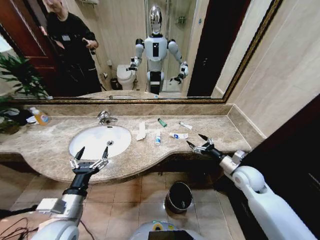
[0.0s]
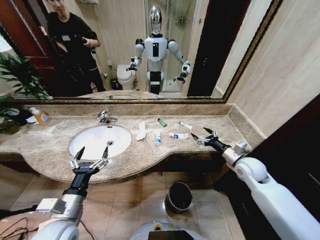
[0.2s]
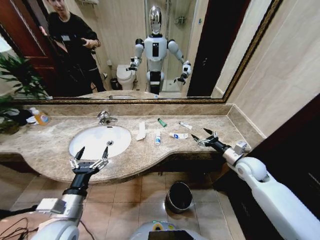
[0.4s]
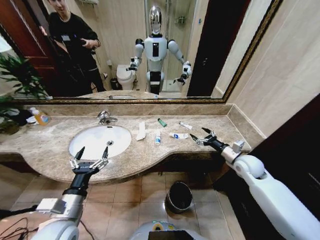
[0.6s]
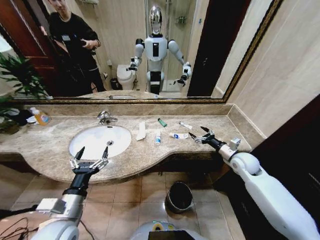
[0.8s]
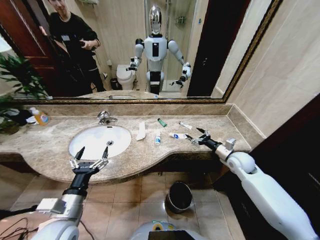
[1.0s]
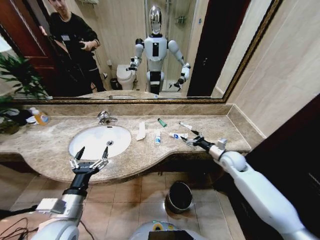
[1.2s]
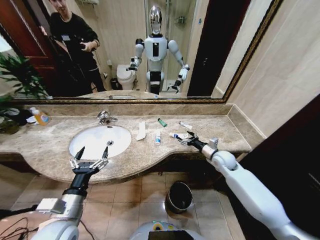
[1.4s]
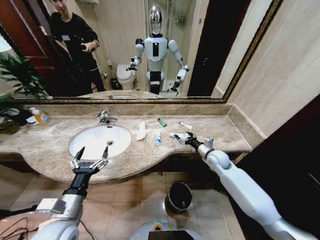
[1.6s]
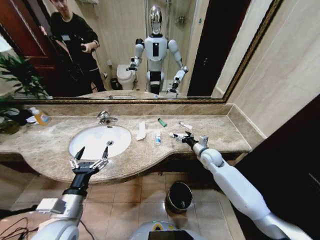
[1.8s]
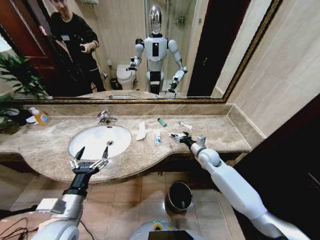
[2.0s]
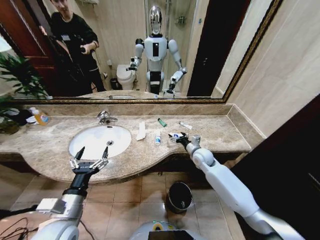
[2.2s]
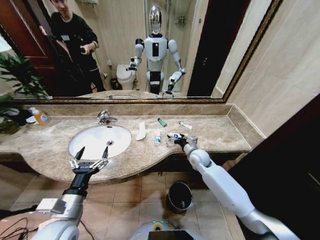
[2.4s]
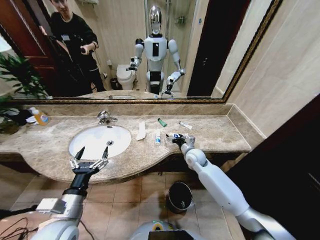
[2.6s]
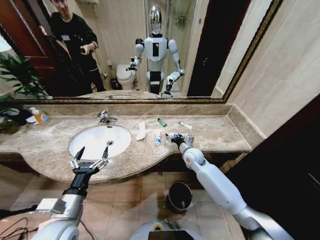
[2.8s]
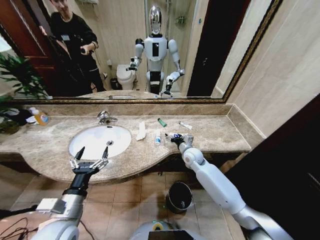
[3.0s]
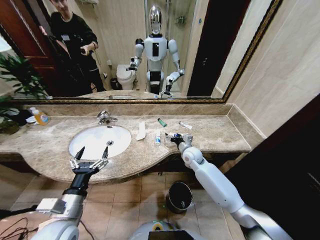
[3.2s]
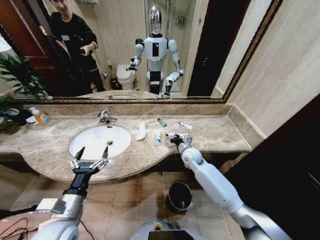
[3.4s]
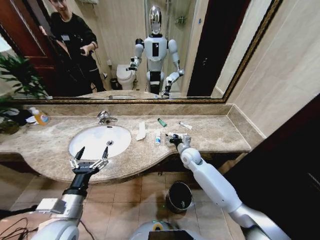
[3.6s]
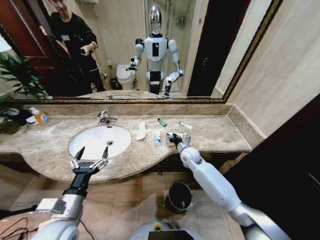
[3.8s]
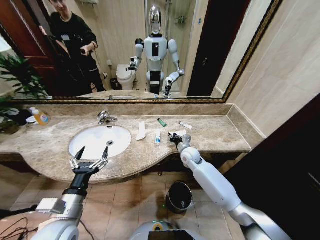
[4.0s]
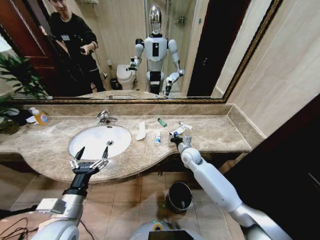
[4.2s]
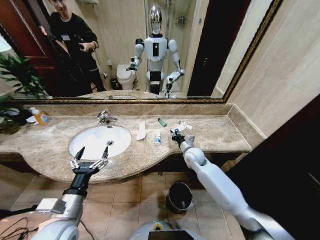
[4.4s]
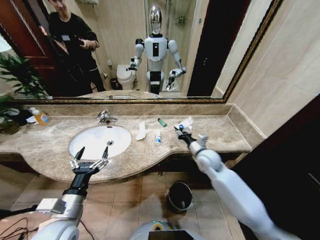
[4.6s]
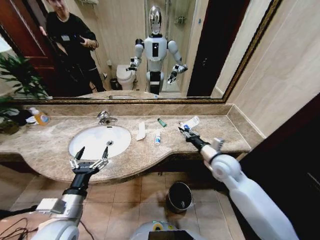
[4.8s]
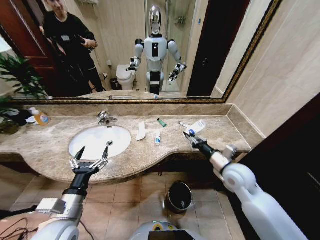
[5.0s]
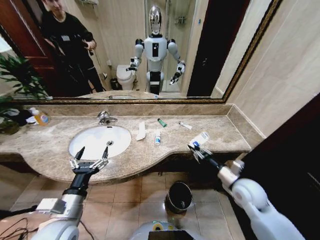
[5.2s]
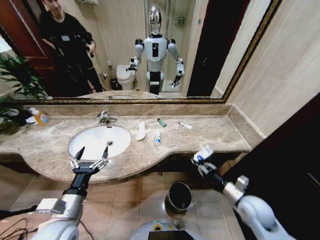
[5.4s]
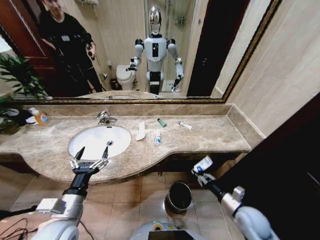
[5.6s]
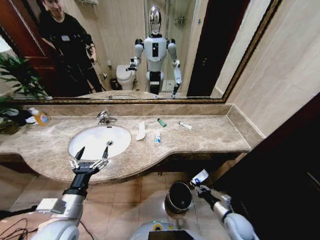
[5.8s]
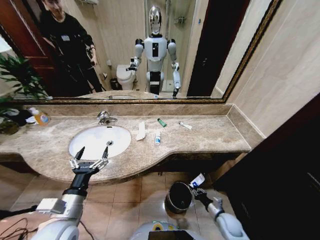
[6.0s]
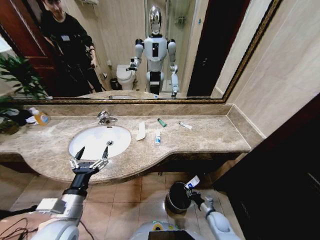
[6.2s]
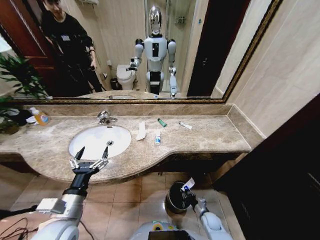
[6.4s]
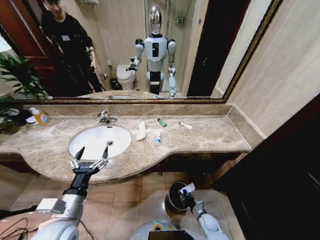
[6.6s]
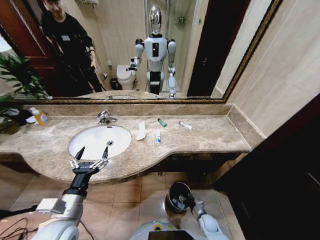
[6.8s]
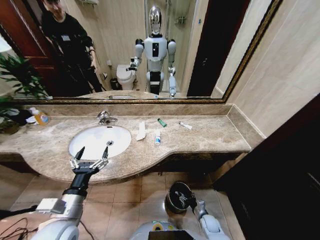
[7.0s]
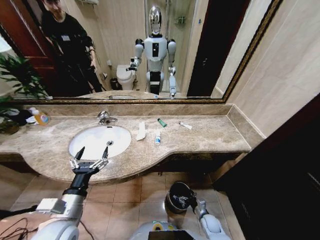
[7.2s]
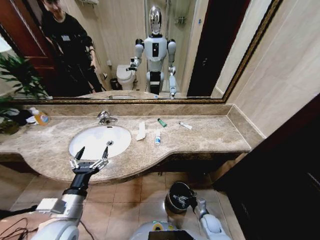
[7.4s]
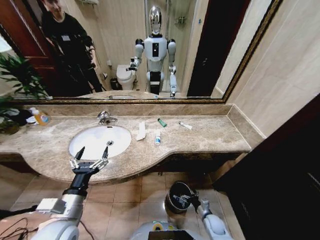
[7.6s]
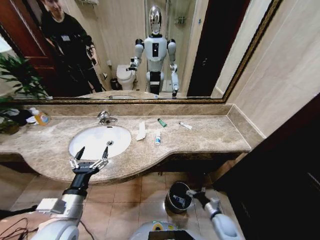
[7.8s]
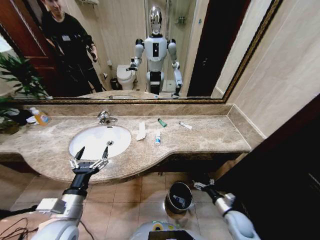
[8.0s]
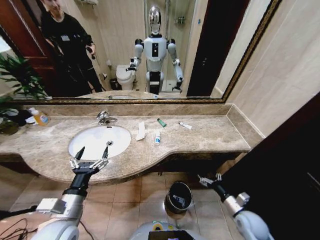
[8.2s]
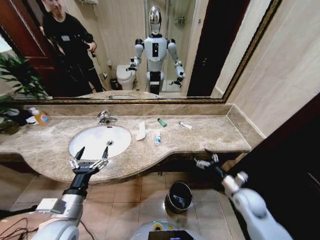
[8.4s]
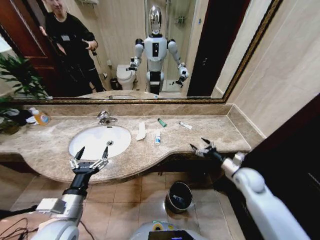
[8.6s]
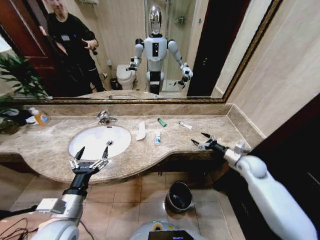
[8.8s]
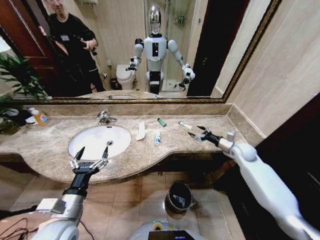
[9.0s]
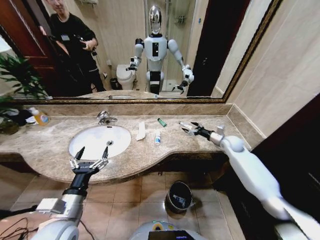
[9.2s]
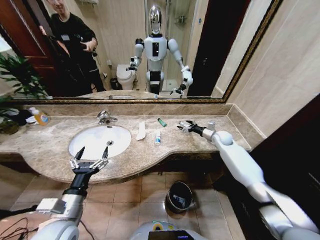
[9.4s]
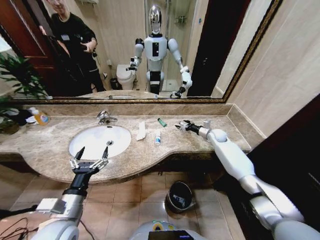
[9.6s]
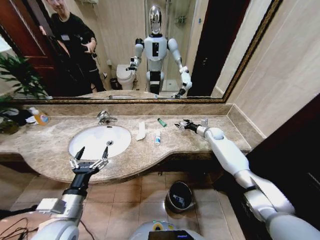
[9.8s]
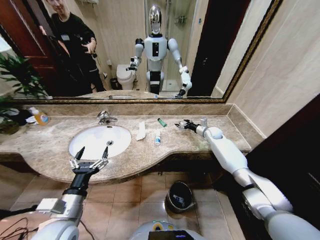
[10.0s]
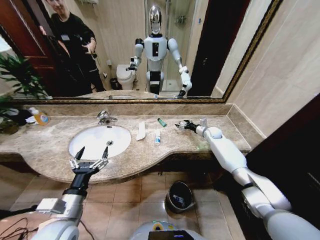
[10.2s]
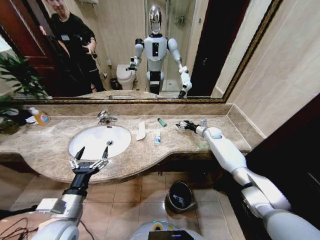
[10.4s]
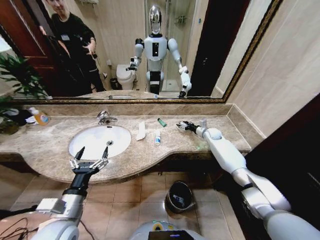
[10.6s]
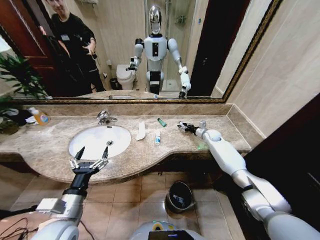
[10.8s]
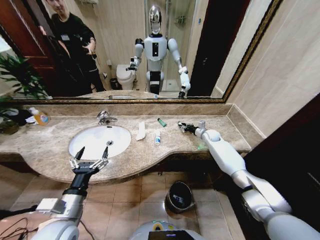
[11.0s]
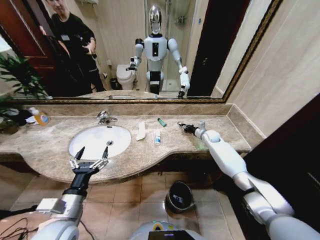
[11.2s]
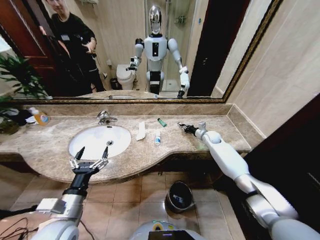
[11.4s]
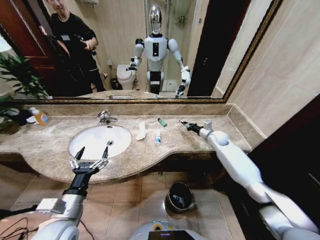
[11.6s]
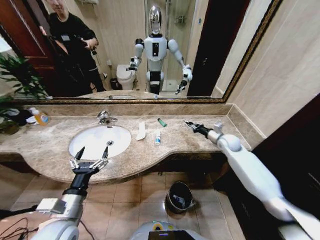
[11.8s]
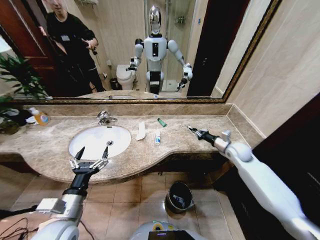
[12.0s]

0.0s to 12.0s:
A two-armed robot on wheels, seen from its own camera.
Task of the whole recording: Pick up the trash from the sink and place it in the trash bin.
1.6s to 3.0s: The right gripper is displaced to the left by some 10 cm.
3.0s to 4.4s: The right gripper closes its fingers.
4.4s to 6.0s: The right gripper goes roughly 35 cm downward, backward and to the right.
6.0s to 7.6s: The right gripper heads downward, covering approximately 5 cm, and opens.
7.6s to 9.0s: The right gripper shifts approximately 40 cm upward, forward and to the right.
9.0s to 10.4s: The right gripper is displaced forward by approximately 15 cm.
10.4s to 12.0s: The right gripper is displaced backward by about 15 cm, and closes up.

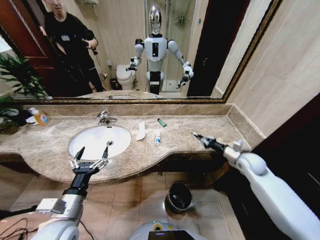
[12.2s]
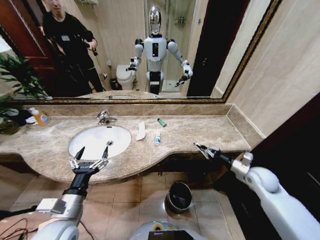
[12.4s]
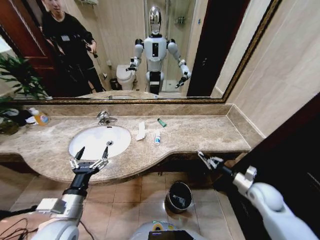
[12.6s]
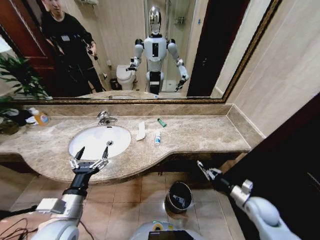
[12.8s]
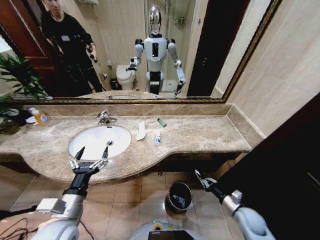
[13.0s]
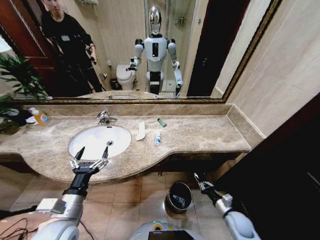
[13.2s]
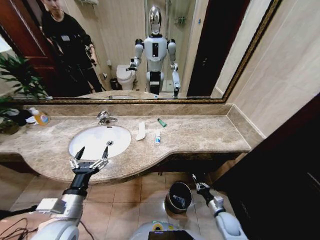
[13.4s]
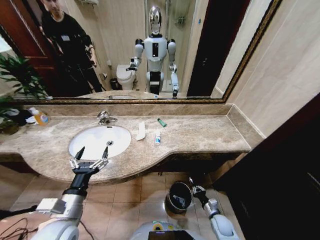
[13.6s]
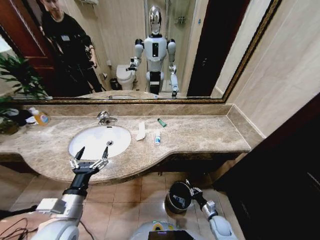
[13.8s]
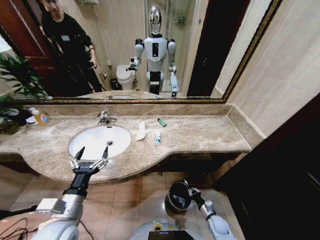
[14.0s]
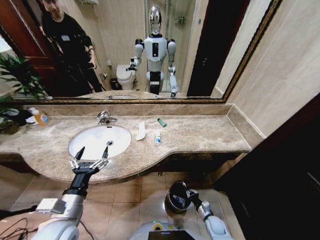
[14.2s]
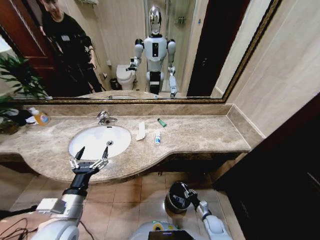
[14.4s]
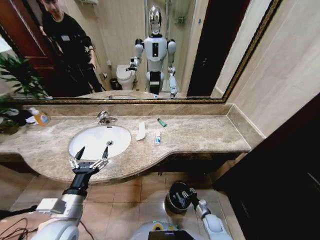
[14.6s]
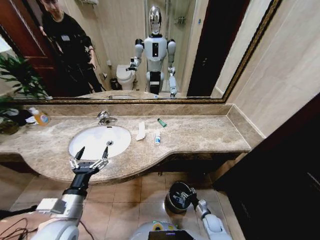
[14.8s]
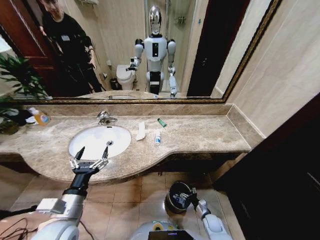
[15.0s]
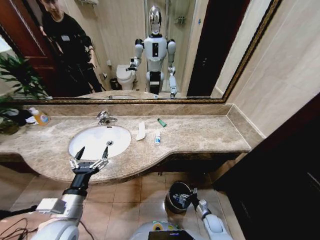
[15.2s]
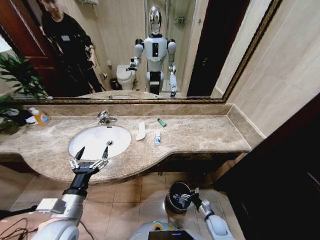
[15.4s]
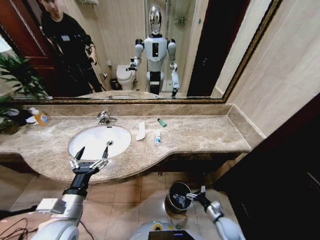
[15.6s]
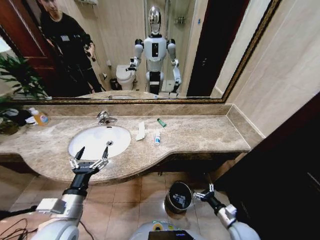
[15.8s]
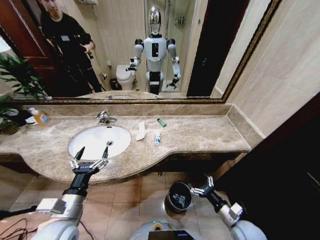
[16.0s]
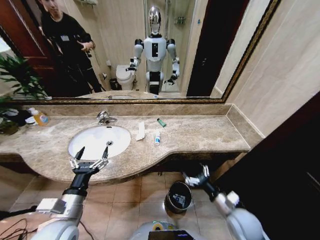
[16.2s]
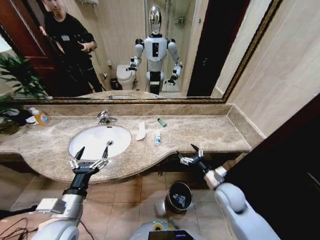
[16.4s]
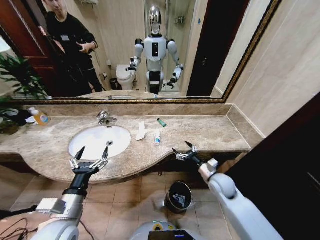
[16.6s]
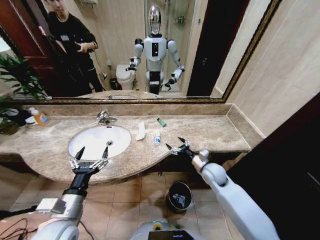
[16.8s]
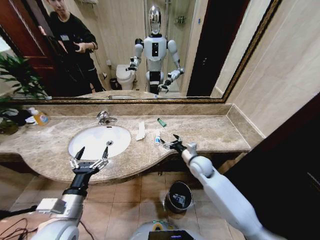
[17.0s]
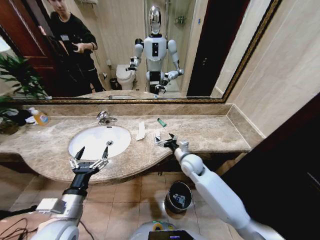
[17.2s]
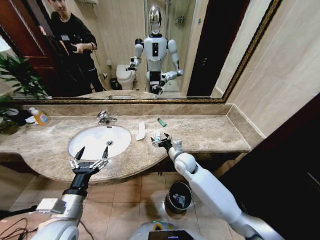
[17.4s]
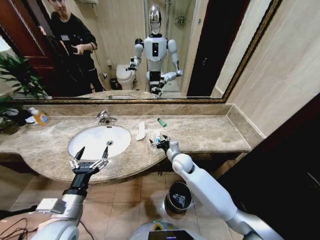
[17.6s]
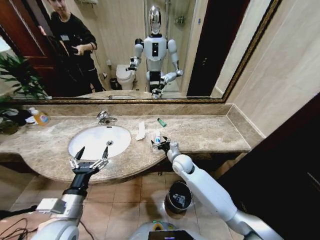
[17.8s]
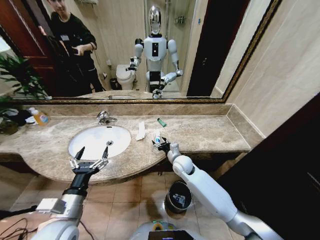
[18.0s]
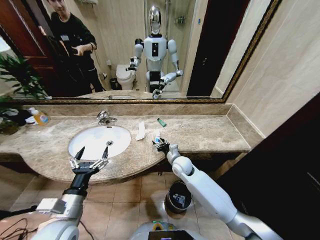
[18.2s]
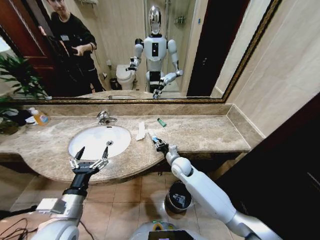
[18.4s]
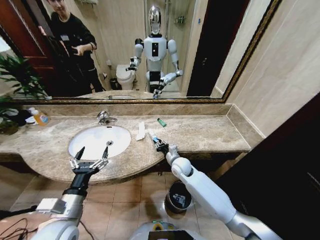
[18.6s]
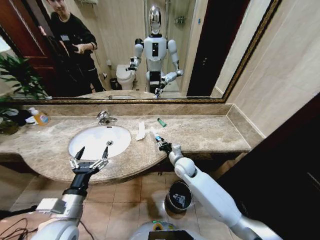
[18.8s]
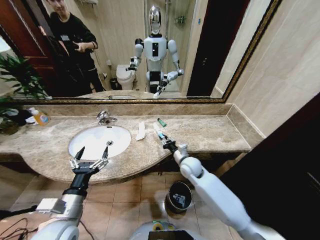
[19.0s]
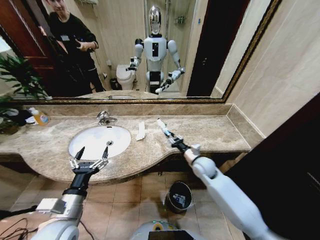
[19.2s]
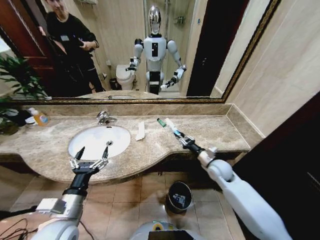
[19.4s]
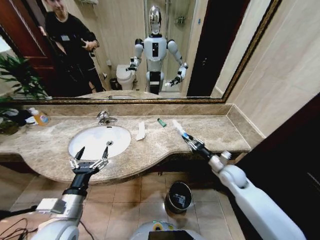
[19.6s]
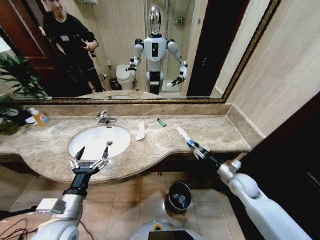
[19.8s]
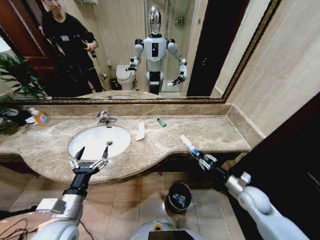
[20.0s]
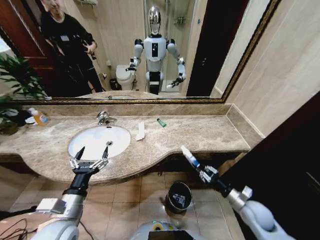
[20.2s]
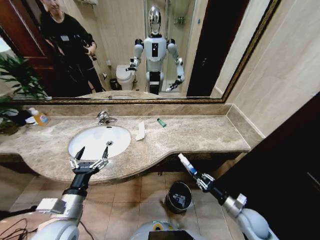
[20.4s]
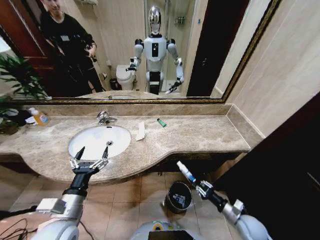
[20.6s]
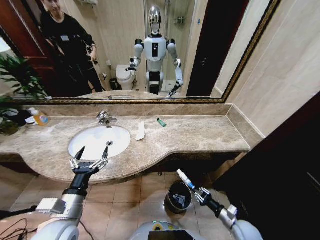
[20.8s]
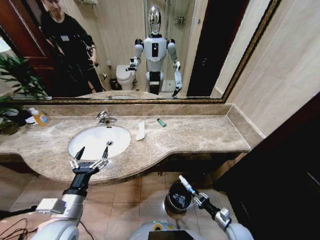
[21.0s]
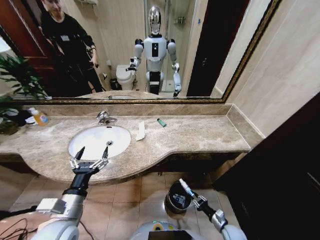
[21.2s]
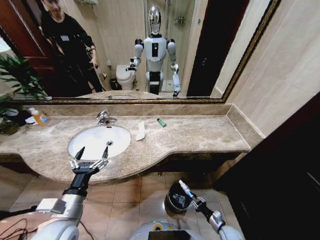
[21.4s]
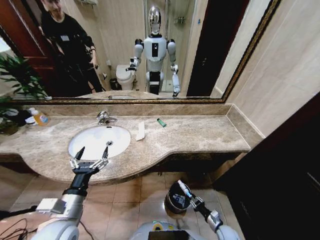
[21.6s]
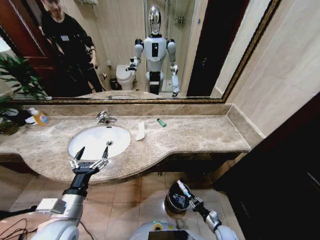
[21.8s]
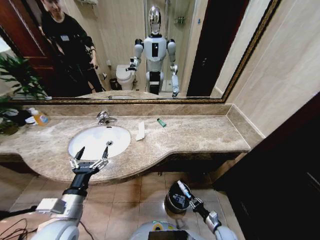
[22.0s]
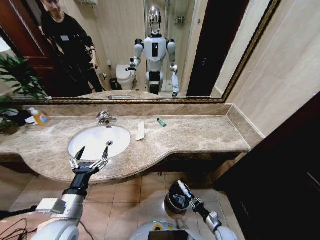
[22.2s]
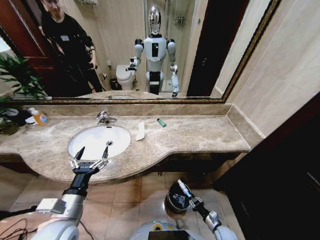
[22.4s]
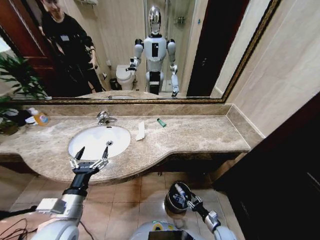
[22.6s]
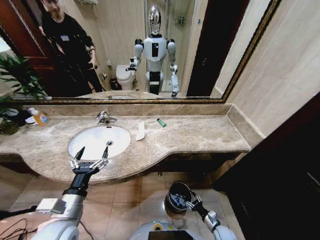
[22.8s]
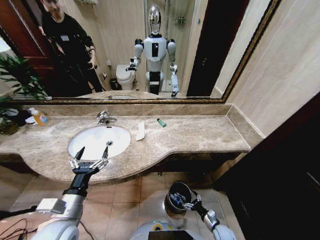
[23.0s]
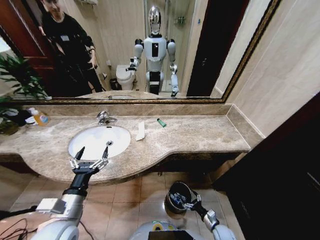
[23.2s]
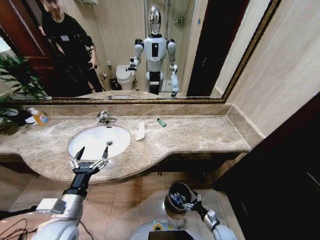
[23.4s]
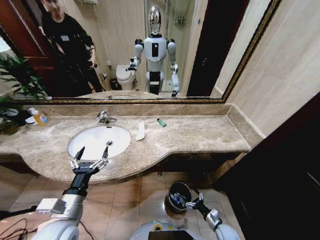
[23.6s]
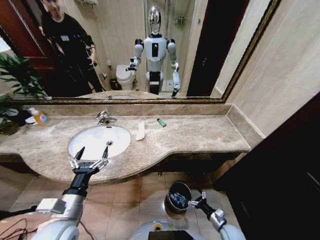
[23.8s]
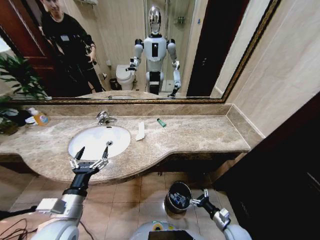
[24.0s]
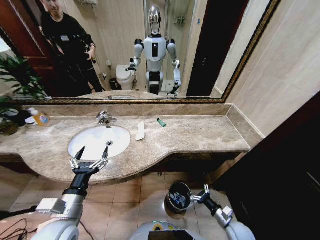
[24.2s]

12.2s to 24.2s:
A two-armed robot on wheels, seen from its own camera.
Task of the whole recording: Pick up the trash from the sink and place it in the trash bin.
12.2s to 13.8s: The right gripper travels downward and backward by some 35 cm.
13.8s to 15.2s: The right gripper opens its fingers.
15.2s to 16.6s: The right gripper heads upward, covering about 25 cm.
16.6s to 18.2s: The right gripper heads to the left and forward, covering some 20 cm, and closes up.
18.2s to 19.8s: The right gripper shifts about 30 cm to the right and backward.
19.8s to 21.2s: The right gripper shifts approximately 30 cm downward and backward.
21.2s to 22.6s: The grippers make only small movements.
22.6s to 24.2s: The right gripper goes about 10 cm upward, and opens.
